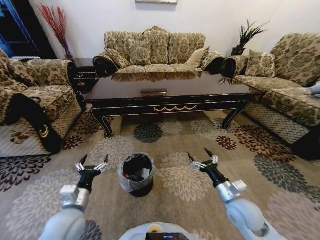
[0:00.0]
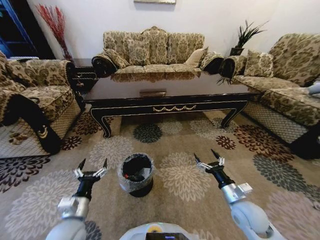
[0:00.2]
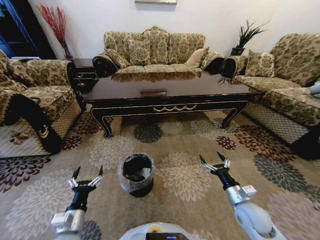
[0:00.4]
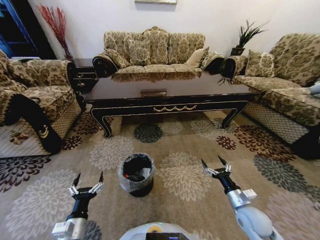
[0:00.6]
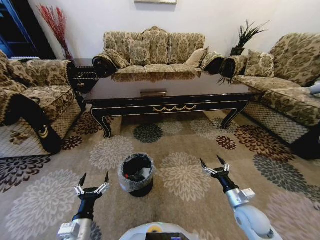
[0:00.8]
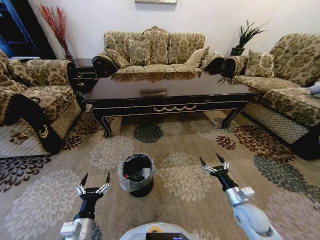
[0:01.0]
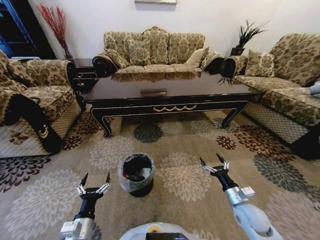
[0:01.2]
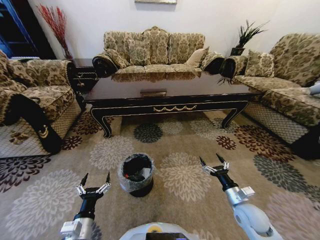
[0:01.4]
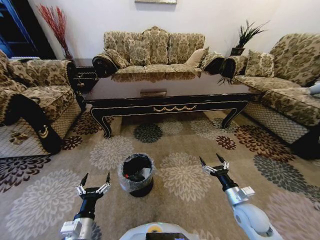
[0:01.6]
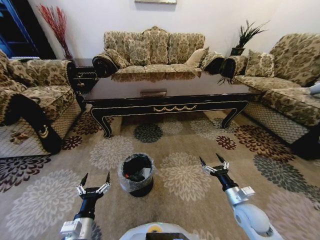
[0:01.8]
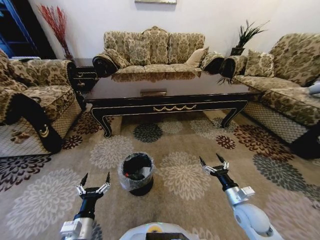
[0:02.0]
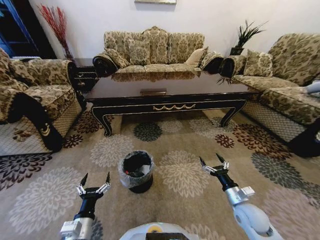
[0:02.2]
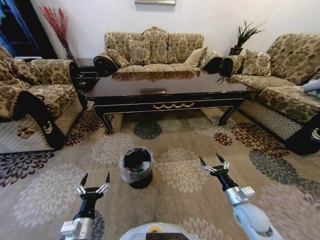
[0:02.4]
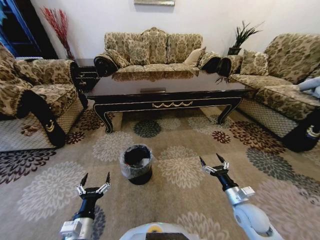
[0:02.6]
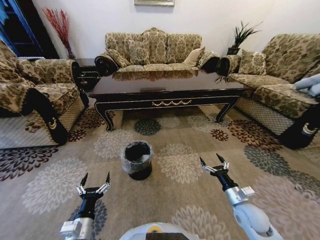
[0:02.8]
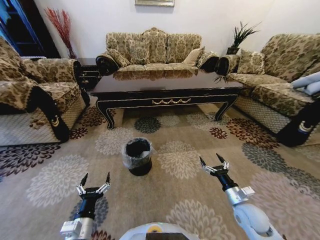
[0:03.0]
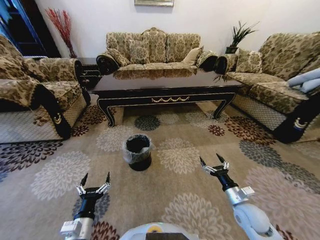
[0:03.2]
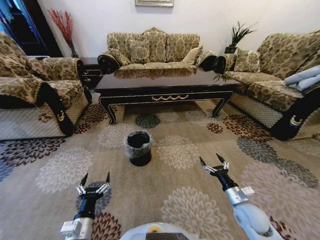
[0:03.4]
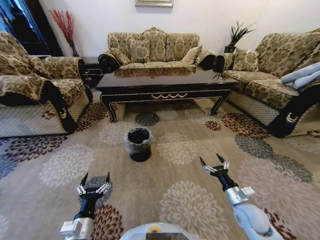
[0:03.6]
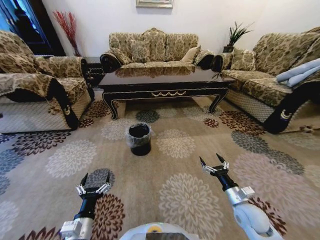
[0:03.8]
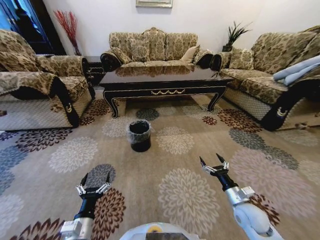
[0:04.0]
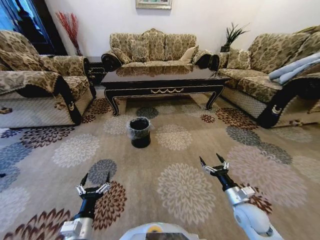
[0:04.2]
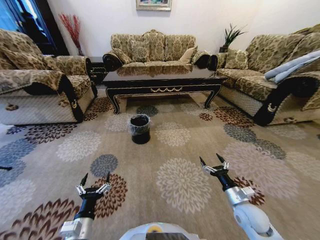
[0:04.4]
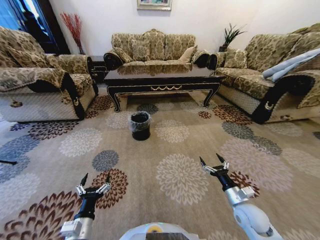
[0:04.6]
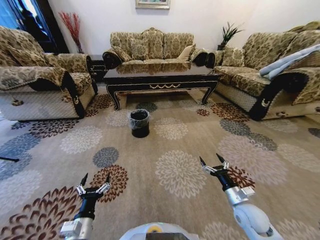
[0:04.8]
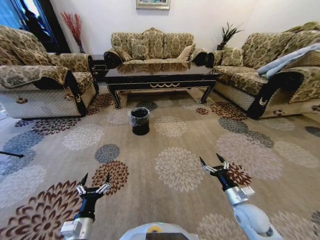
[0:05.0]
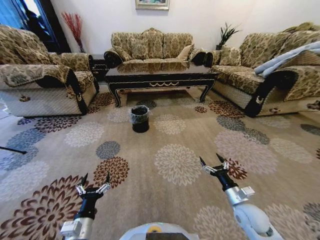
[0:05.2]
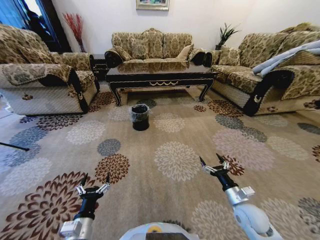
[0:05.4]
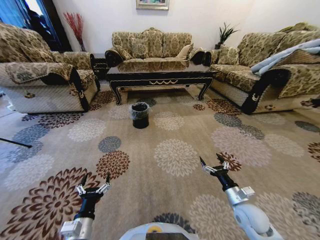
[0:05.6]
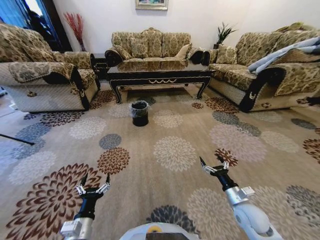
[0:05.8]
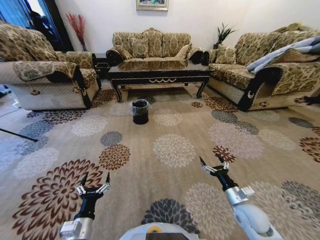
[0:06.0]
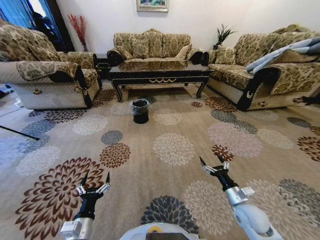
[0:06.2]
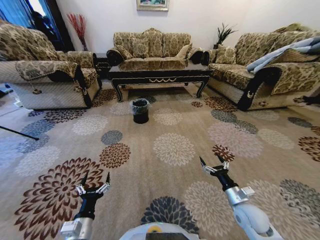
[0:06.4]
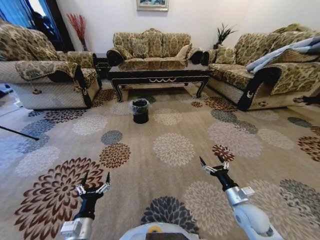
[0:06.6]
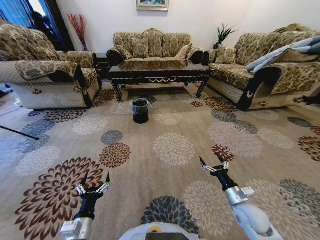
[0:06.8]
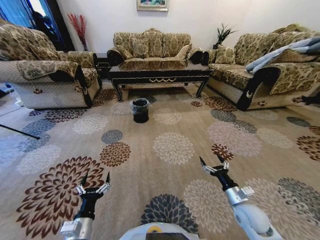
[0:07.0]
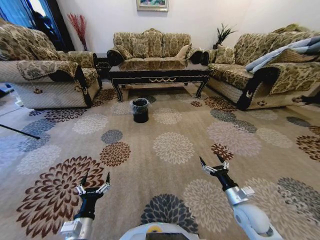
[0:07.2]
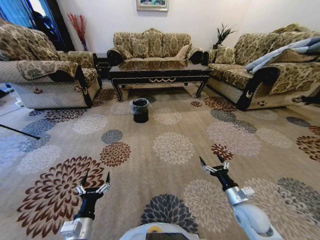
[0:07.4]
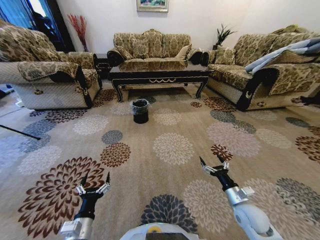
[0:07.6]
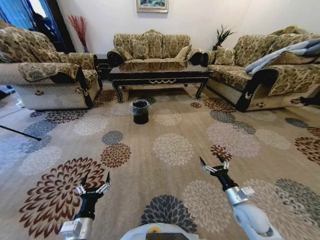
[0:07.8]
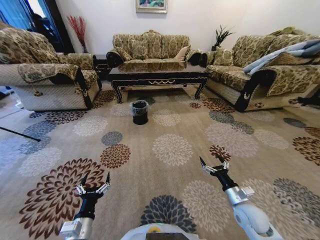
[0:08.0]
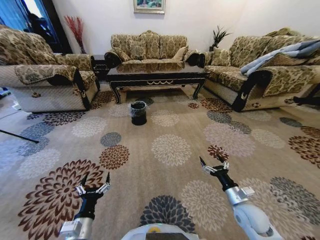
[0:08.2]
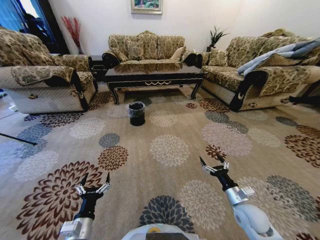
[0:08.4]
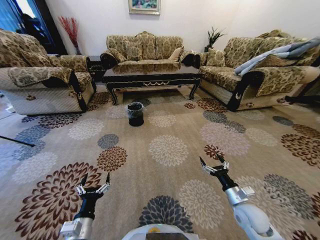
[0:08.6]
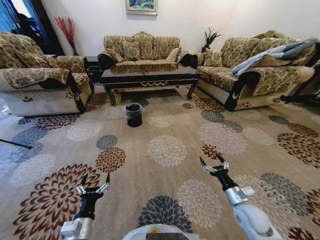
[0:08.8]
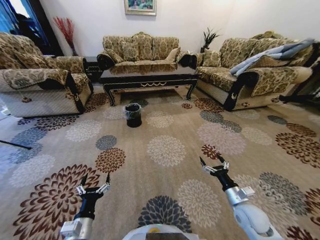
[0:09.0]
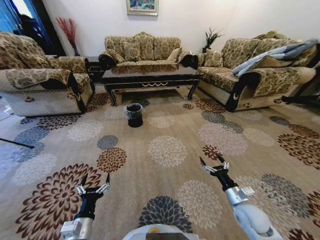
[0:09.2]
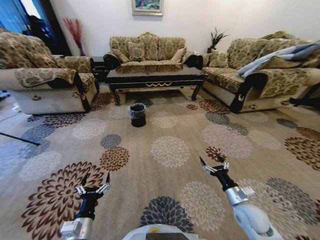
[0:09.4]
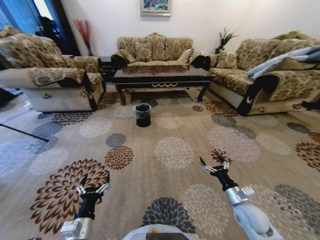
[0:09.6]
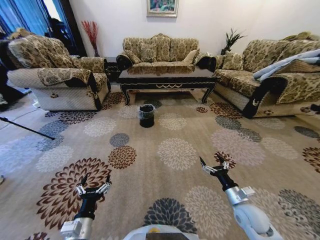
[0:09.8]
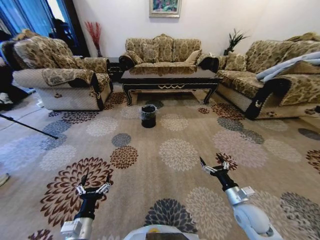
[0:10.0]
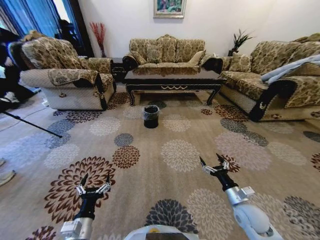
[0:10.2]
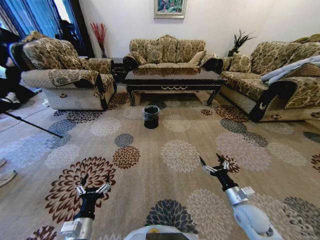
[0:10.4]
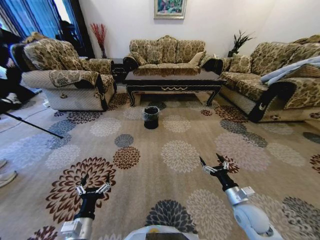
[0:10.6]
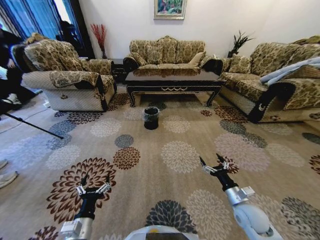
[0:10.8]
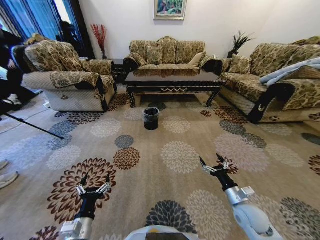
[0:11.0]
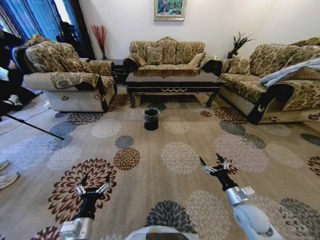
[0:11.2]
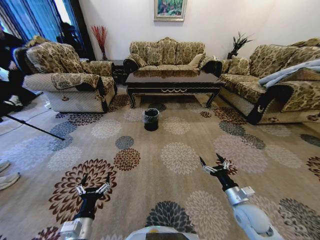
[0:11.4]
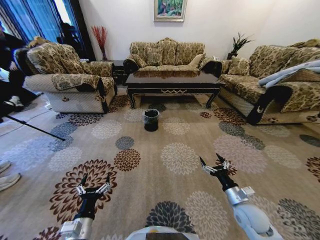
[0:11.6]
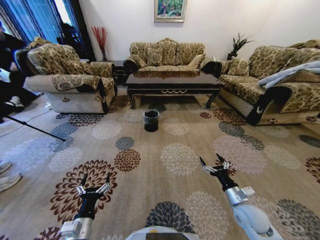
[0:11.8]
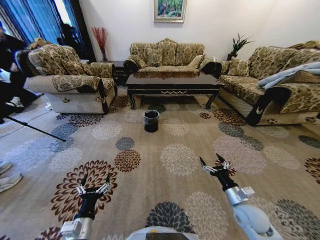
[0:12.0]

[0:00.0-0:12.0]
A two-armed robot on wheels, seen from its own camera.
Task of the whole recording: Move to the front of the table and pick up the trash from the floor, then place it into the trash bin.
0:00.0 to 0:01.6: The left gripper heads backward and downward, covering roughly 10 cm. Meanwhile the right gripper heads to the right and downward, covering about 5 cm.
0:06.0 to 0:07.6: Both grippers stay about where they are.

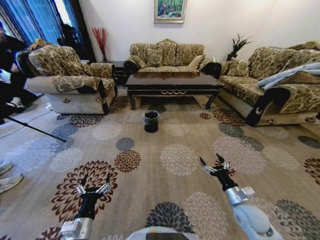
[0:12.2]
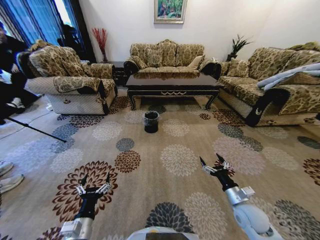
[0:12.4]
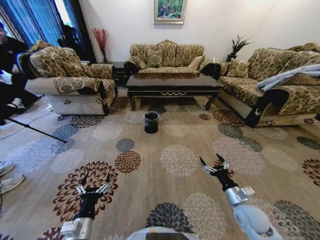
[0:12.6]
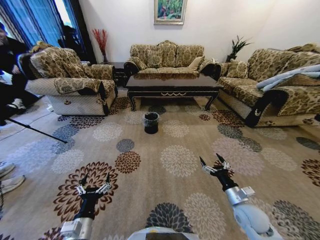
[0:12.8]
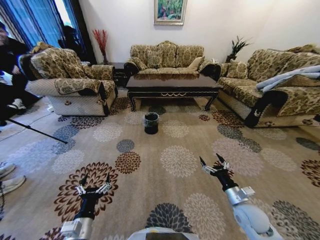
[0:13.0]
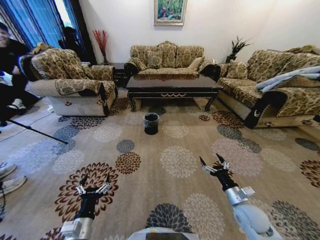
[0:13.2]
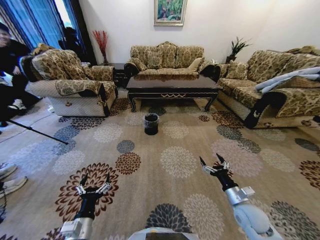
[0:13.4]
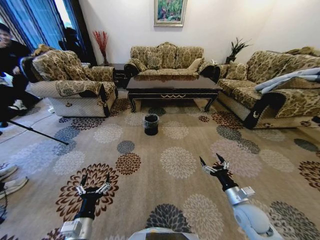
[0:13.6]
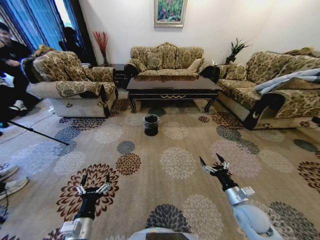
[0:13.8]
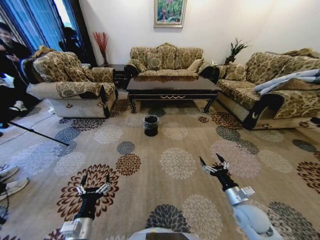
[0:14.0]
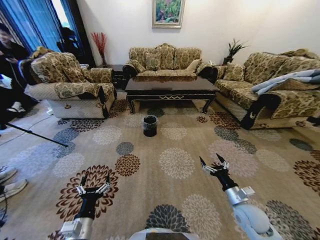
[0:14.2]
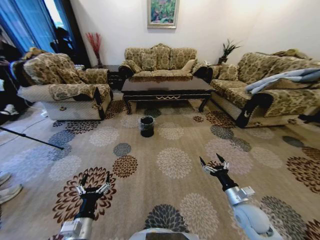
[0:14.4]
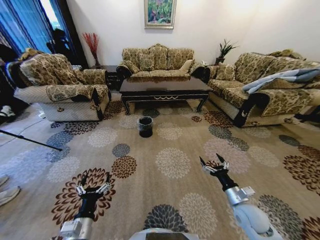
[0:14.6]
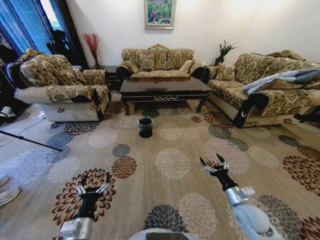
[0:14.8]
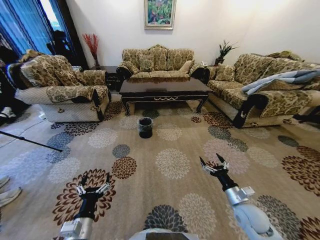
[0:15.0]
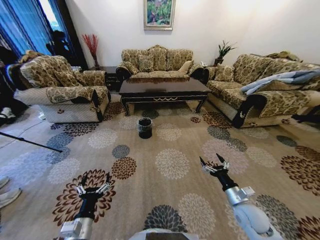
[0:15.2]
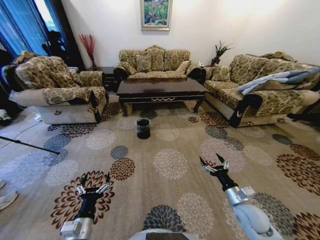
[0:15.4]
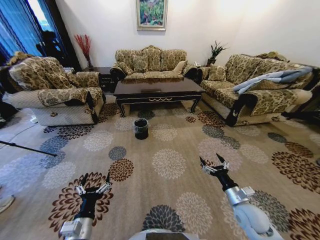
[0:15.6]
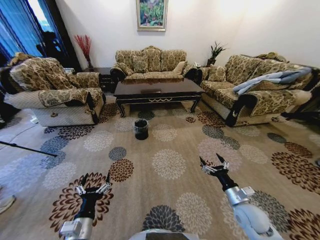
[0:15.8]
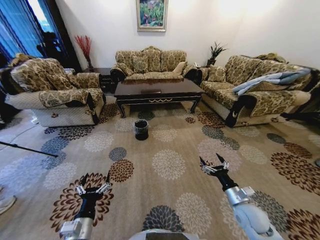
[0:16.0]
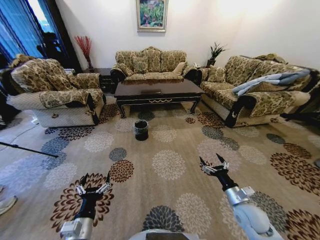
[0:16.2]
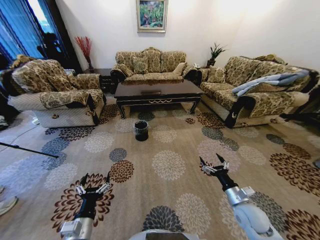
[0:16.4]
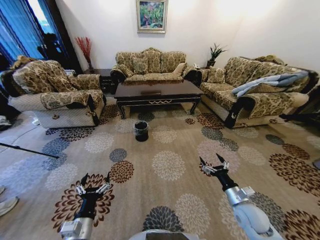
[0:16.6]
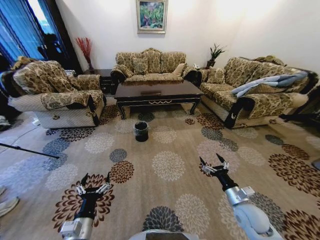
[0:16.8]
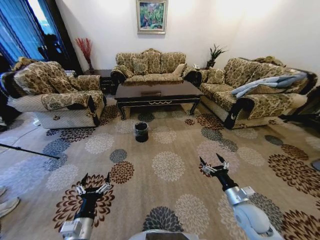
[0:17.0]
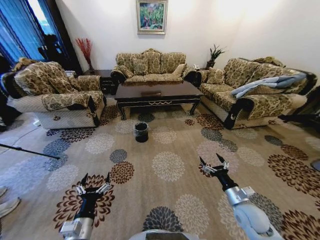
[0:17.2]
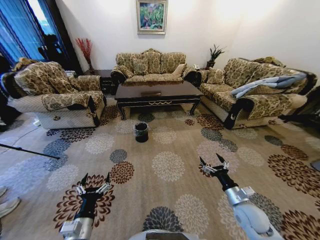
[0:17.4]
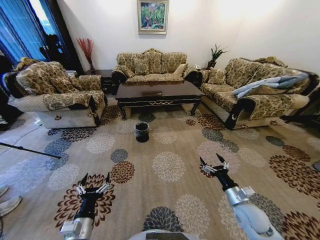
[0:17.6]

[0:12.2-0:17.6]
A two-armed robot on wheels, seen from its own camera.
Task of the whole recording: Move to the front of the table and pick up the trash from the floor, then place it into the trash bin.
0:16.2 to 0:17.6: Both grippers stay put.

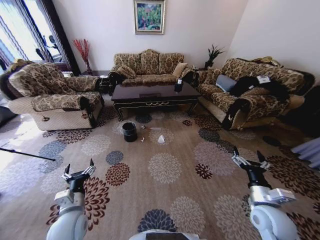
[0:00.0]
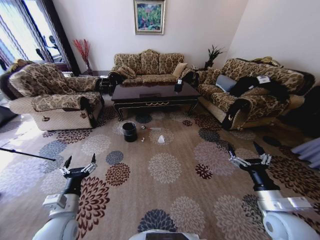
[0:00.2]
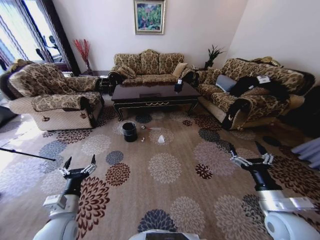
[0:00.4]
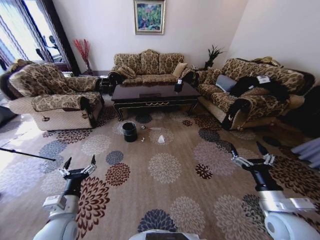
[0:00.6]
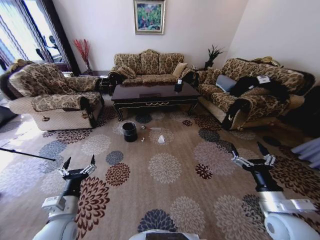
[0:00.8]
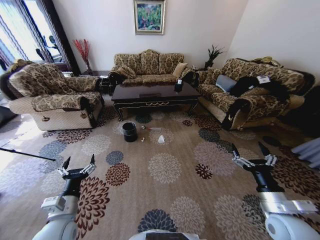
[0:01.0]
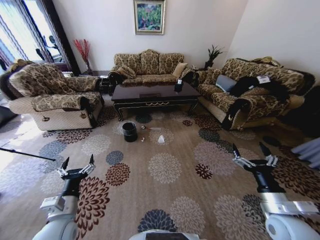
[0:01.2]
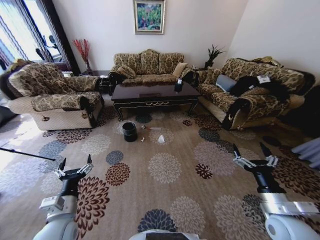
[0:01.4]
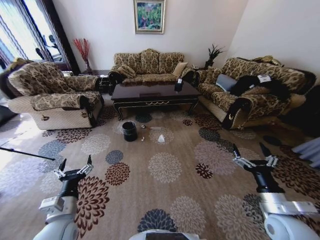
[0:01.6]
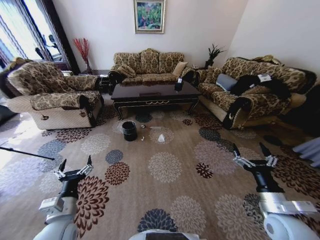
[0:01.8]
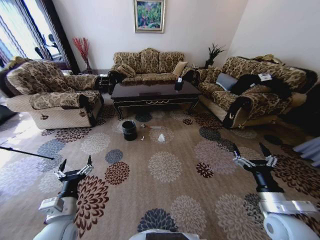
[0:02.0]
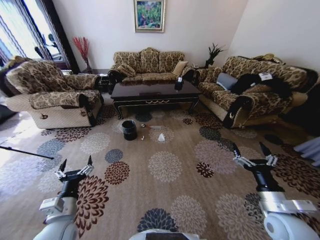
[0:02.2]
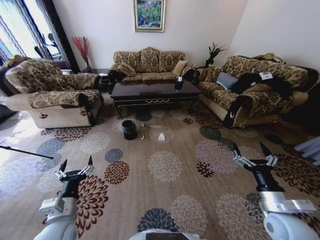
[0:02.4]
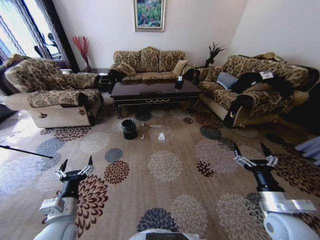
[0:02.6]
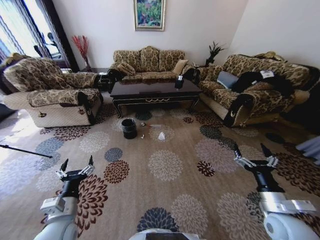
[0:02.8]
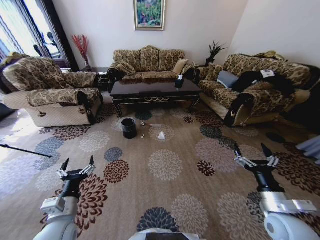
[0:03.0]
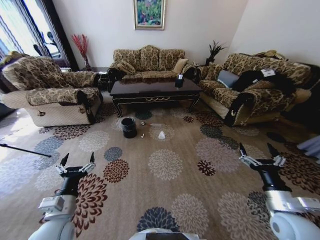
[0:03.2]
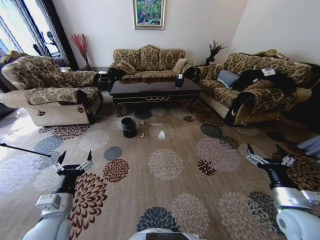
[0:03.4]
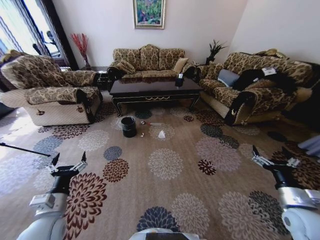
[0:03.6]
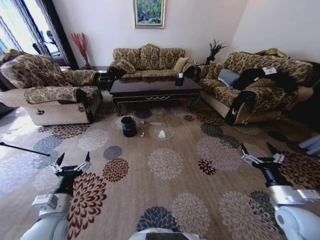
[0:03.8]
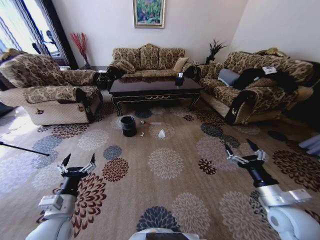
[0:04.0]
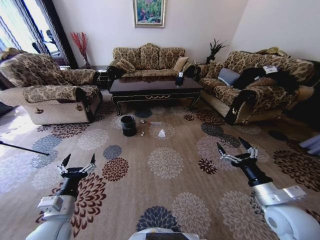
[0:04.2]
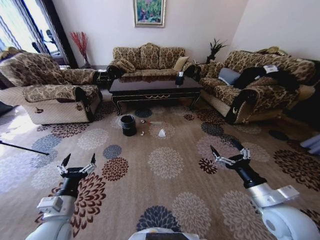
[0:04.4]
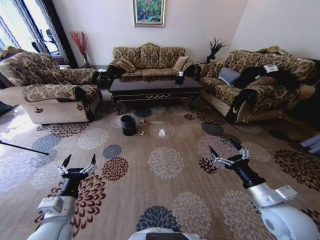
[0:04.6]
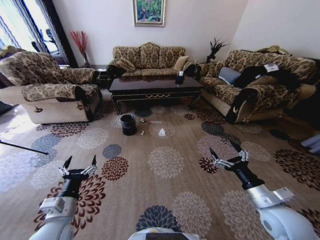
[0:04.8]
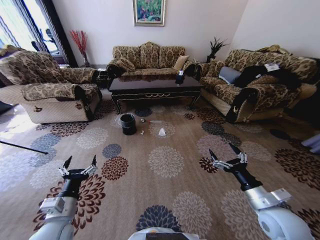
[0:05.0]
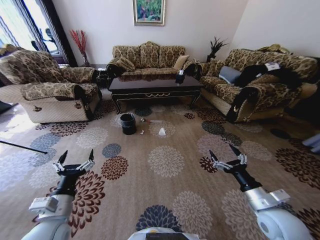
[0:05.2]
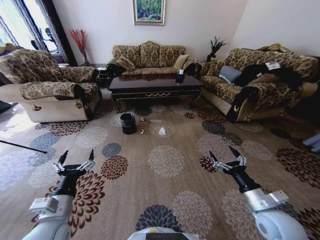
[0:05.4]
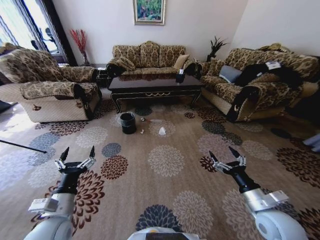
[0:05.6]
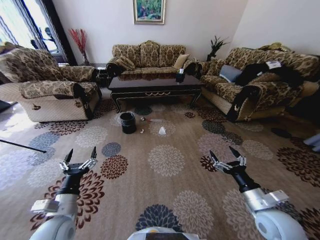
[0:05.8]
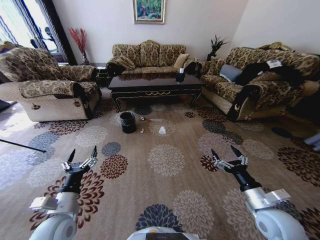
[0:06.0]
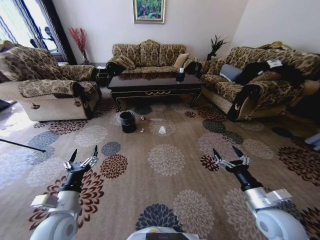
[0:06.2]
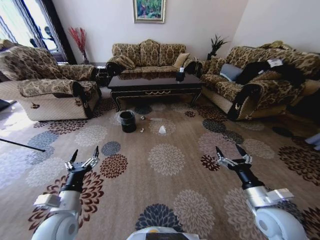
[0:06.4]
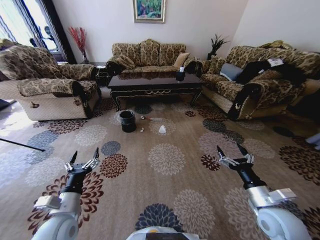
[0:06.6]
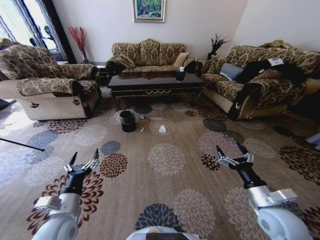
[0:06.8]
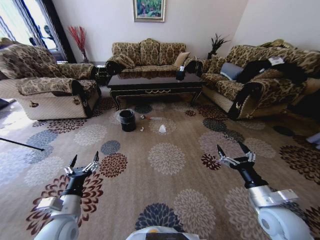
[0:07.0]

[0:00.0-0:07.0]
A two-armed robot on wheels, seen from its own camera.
Task of the whole recording: Move to the front of the table and pick up the trash from the floor, then place it into the trash bin.
0:02.8 to 0:04.2: The right gripper travels to the right and back again, about 5 cm each way.
